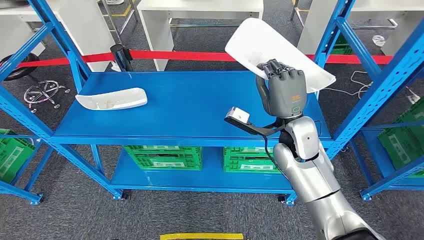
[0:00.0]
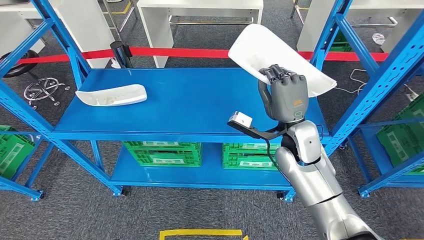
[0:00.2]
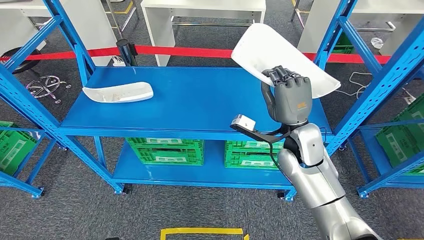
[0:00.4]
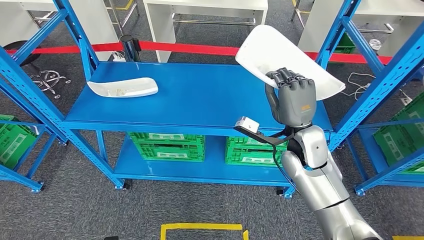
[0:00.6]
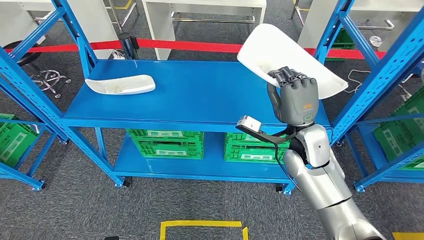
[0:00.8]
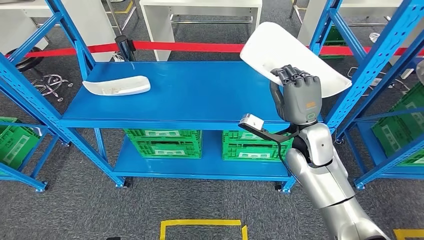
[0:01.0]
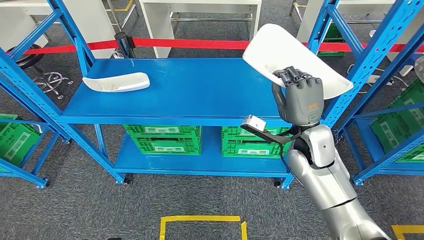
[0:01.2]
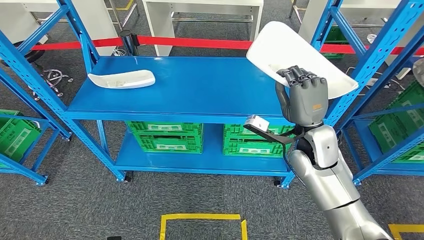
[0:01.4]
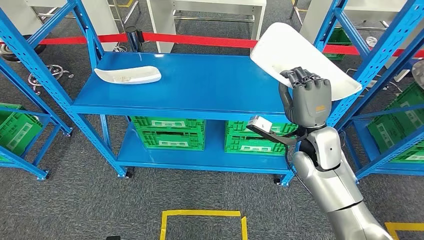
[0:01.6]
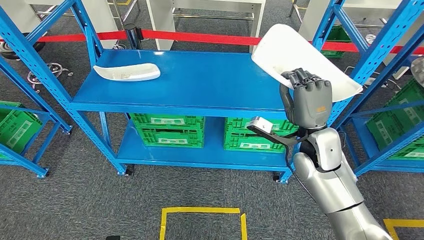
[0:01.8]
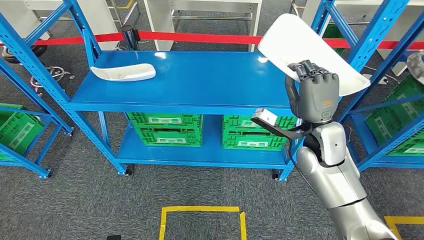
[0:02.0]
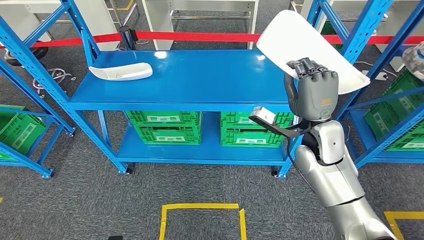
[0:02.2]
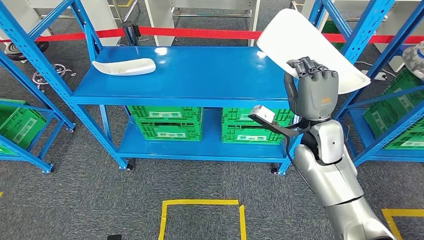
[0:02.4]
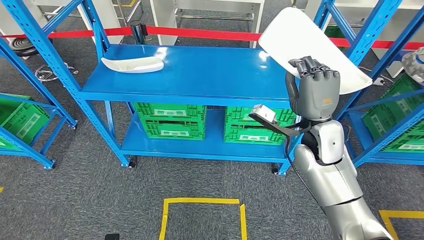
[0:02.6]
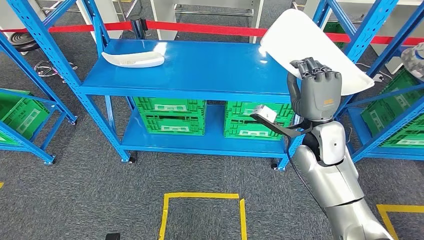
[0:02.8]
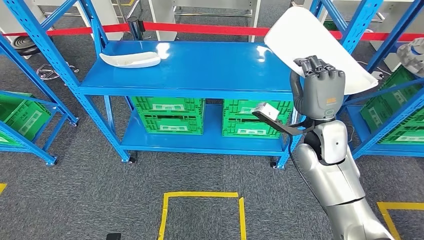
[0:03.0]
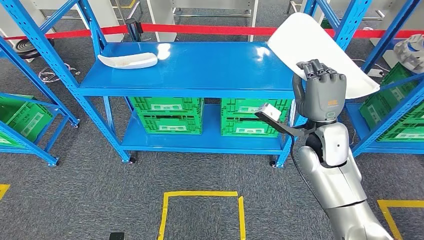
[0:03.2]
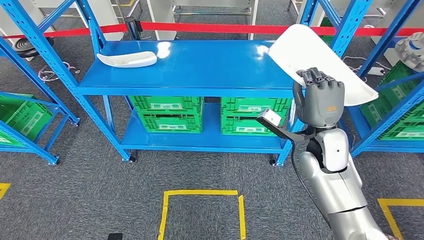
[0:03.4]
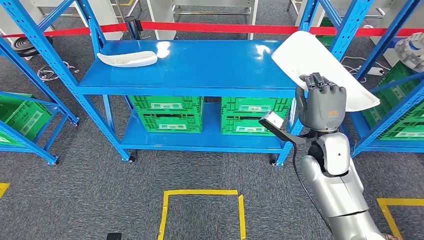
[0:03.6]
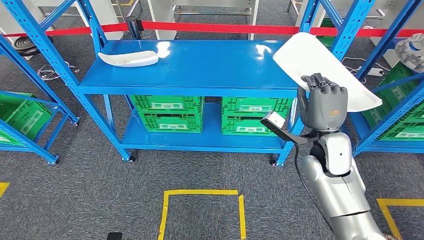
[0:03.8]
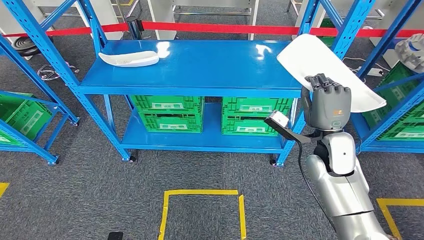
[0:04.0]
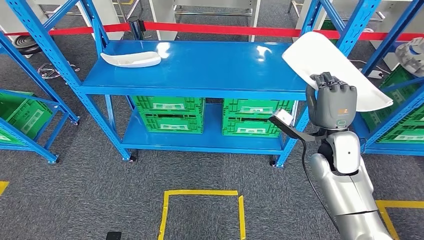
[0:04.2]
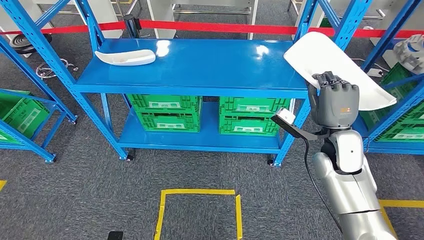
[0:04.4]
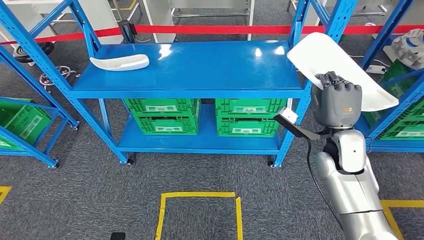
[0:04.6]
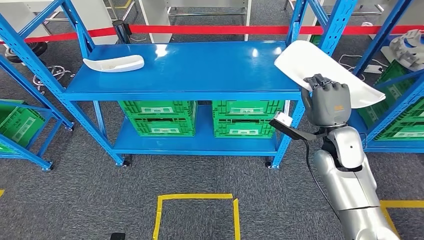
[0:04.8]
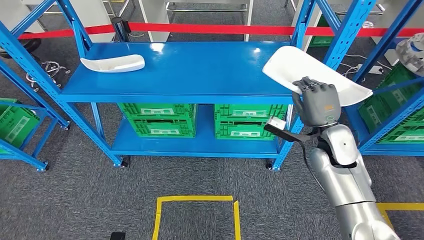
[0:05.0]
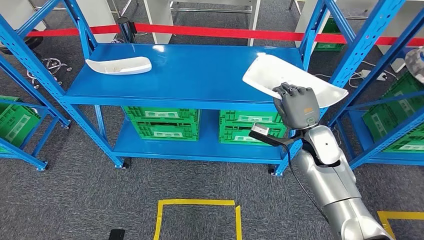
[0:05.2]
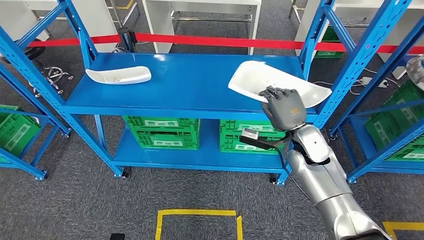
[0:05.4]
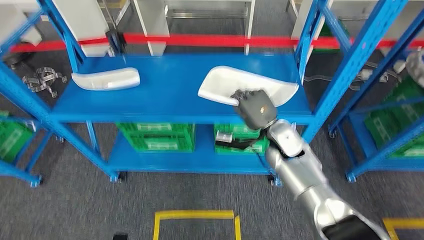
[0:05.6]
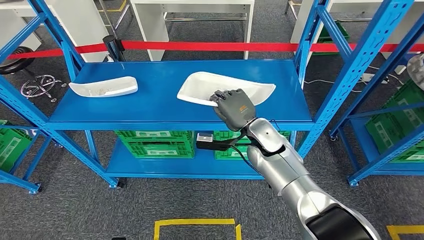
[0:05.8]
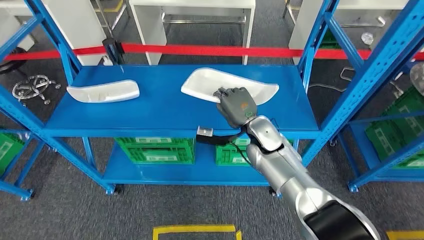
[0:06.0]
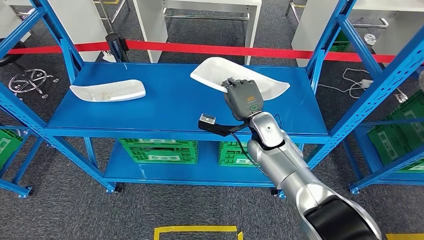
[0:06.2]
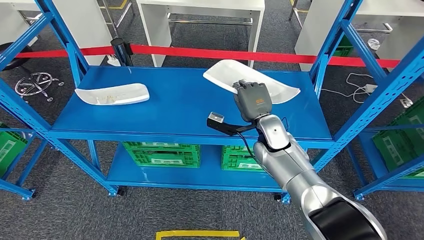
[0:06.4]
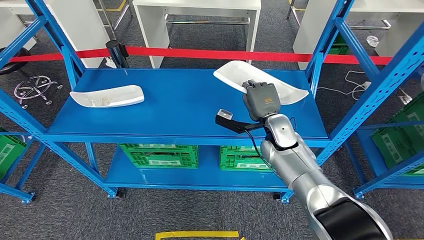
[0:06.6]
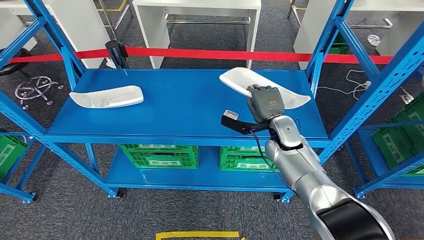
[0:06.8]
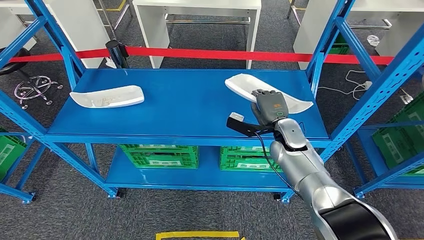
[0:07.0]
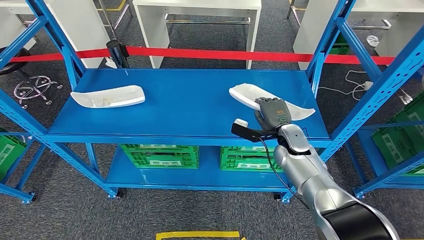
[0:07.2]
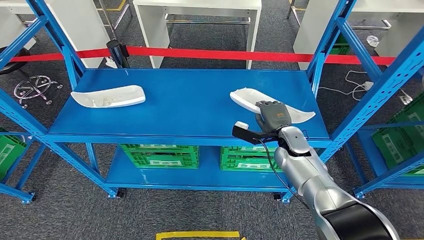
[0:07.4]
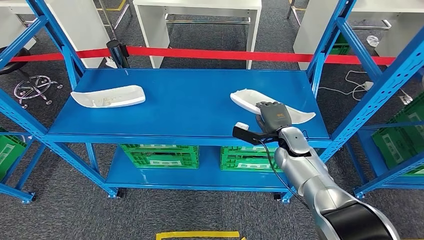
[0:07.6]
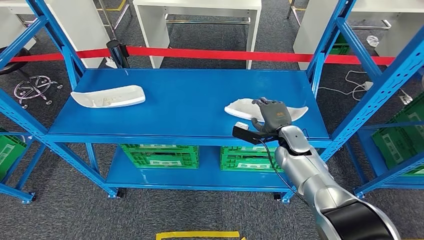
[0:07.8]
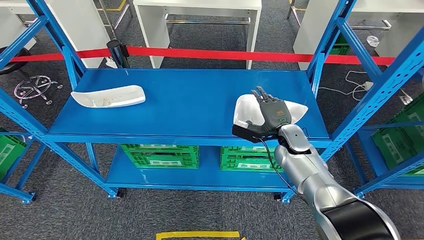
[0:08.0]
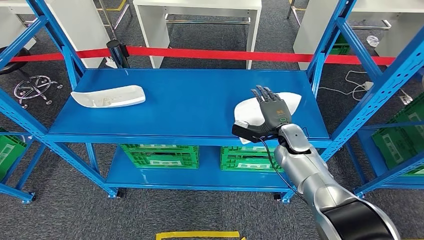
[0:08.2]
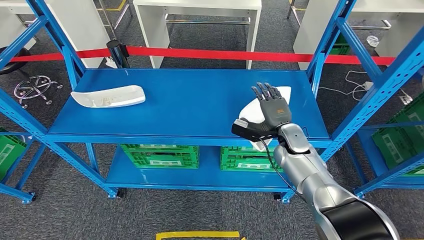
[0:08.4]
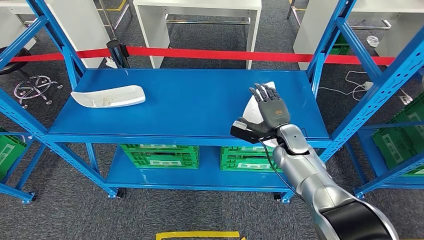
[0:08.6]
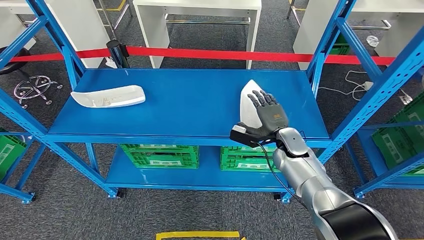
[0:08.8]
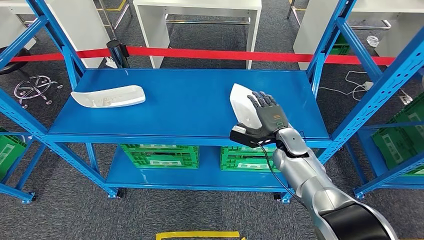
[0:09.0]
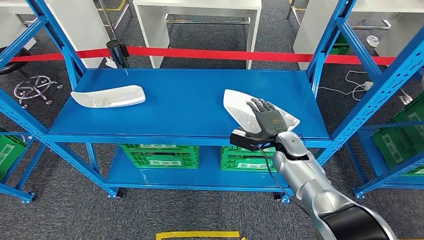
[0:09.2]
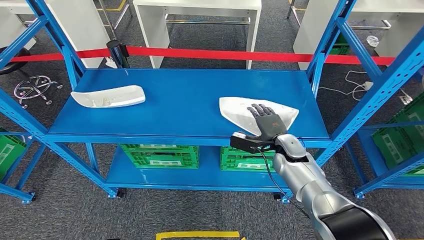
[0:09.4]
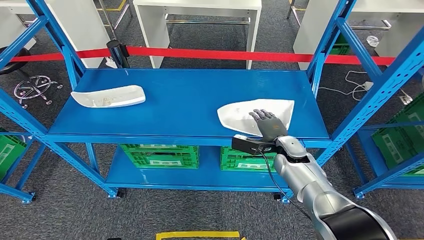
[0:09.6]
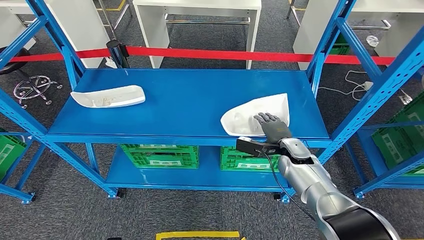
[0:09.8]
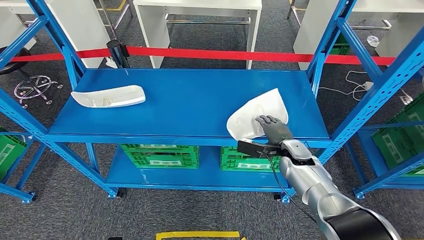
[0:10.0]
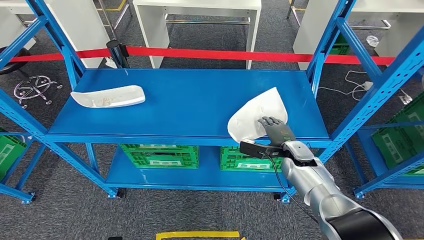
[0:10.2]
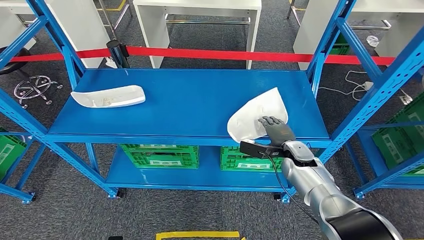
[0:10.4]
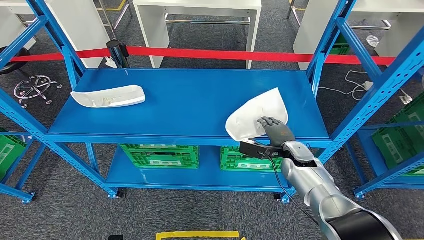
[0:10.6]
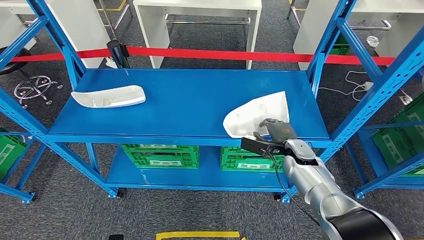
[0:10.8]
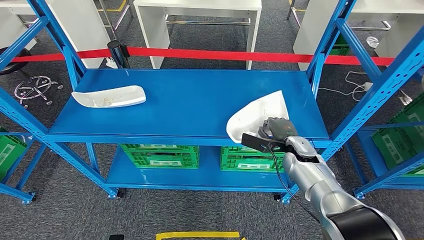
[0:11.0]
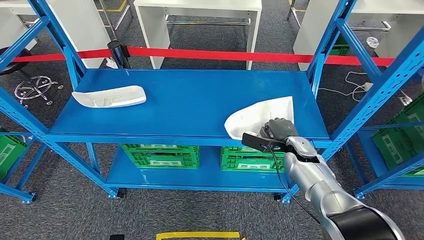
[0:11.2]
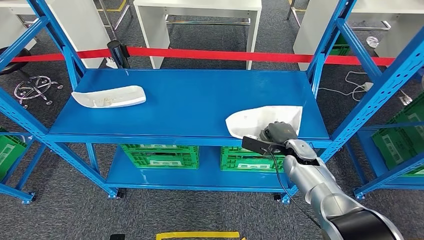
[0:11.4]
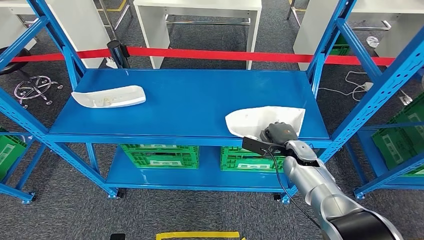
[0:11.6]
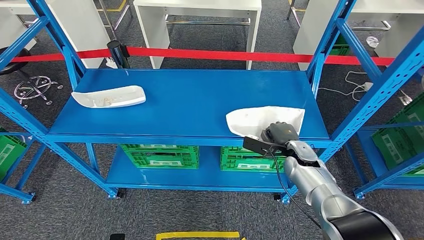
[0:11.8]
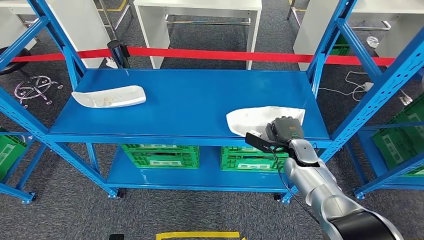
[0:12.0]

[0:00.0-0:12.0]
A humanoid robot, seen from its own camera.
0:07.6 to 0:09.0: There are only small adjustments of the hands.
0:09.0 to 0:10.4: The right hand changes place by roughly 5 cm.
0:10.4 to 0:12.0: The hands move only a little.

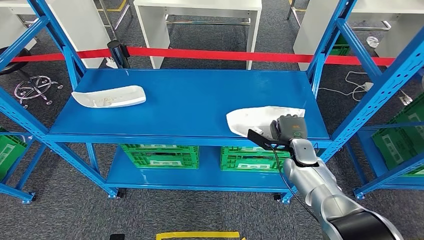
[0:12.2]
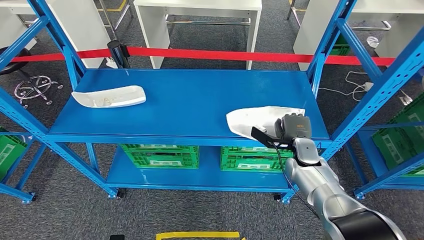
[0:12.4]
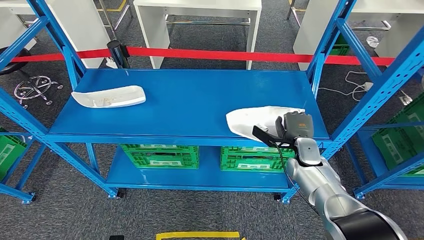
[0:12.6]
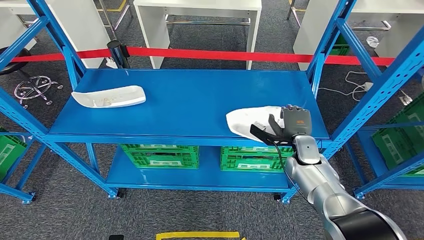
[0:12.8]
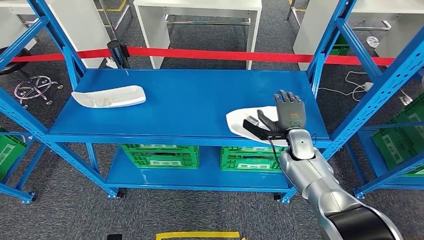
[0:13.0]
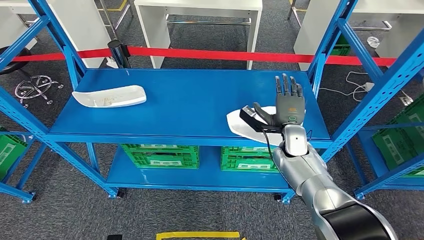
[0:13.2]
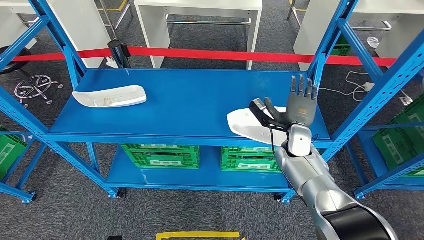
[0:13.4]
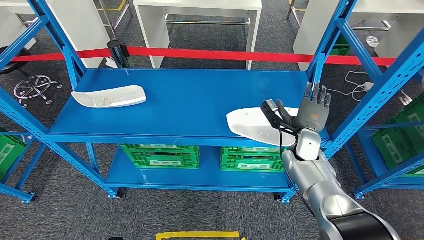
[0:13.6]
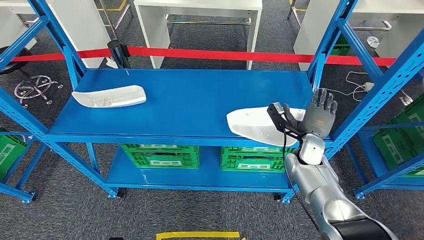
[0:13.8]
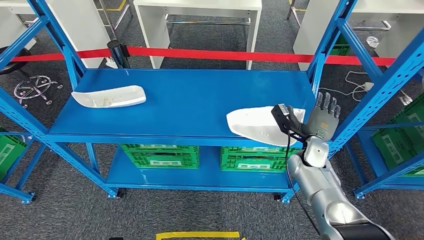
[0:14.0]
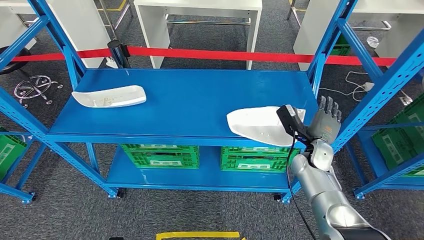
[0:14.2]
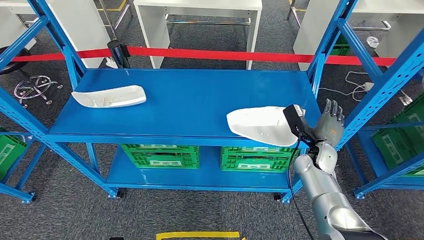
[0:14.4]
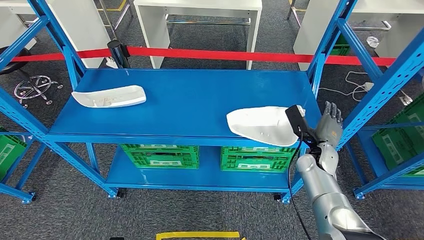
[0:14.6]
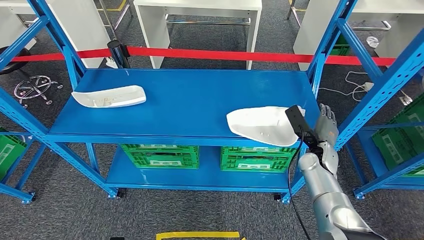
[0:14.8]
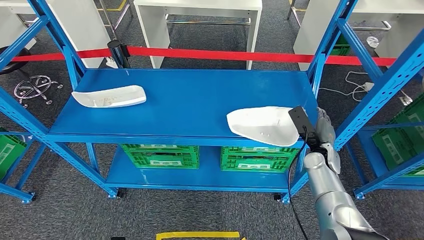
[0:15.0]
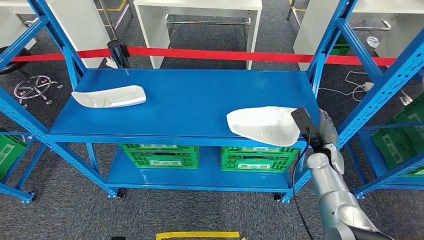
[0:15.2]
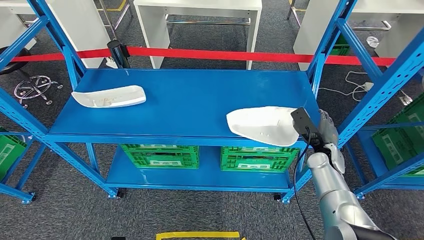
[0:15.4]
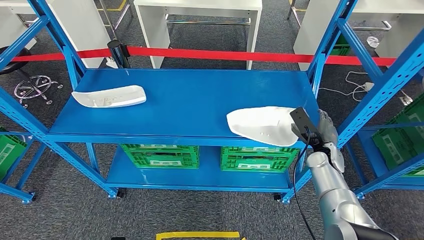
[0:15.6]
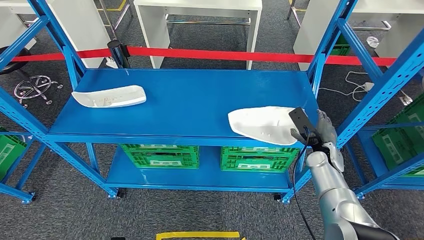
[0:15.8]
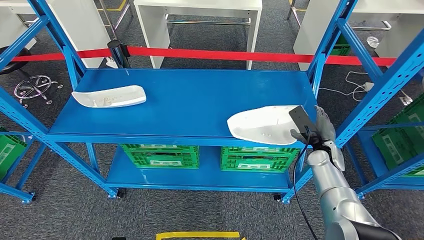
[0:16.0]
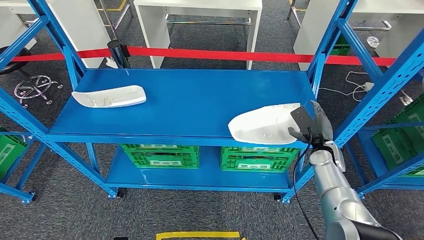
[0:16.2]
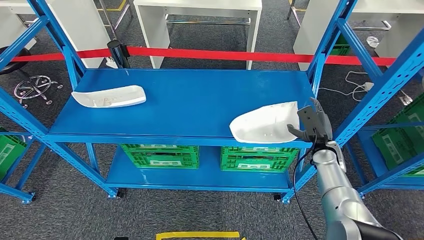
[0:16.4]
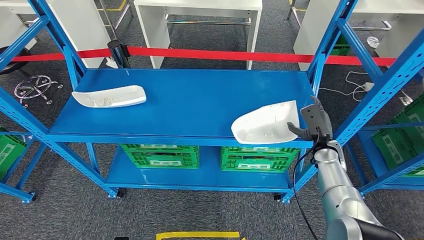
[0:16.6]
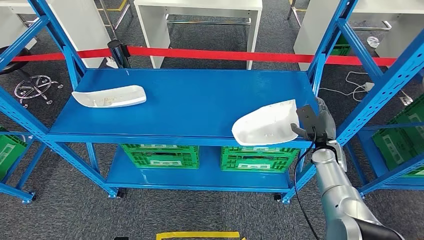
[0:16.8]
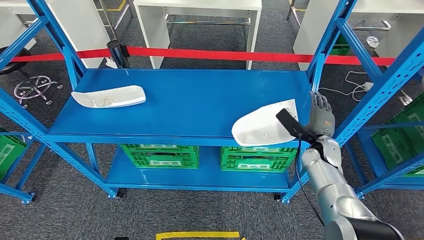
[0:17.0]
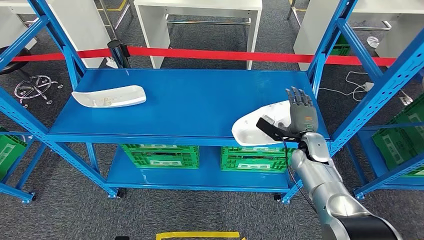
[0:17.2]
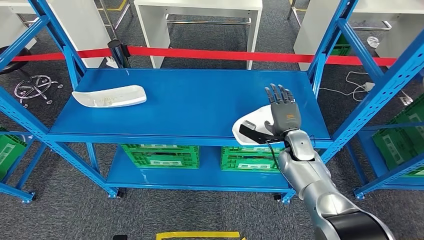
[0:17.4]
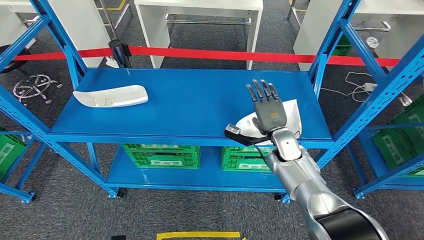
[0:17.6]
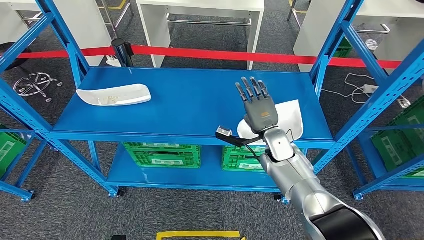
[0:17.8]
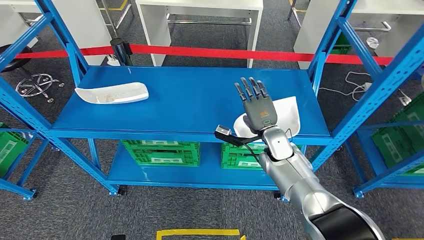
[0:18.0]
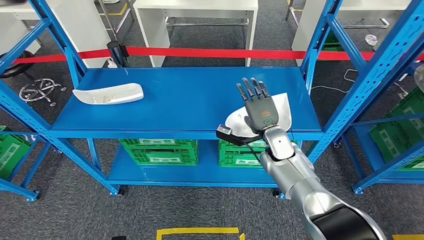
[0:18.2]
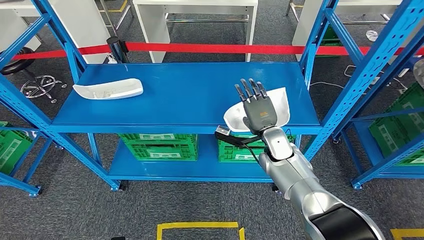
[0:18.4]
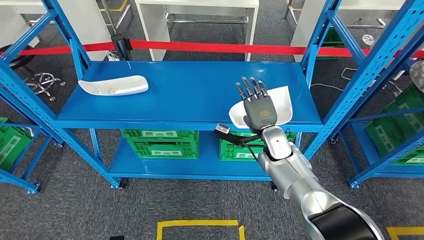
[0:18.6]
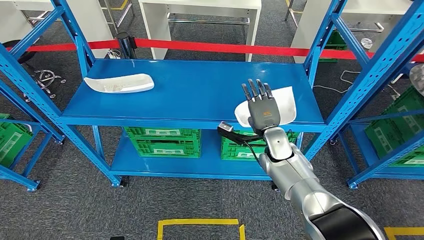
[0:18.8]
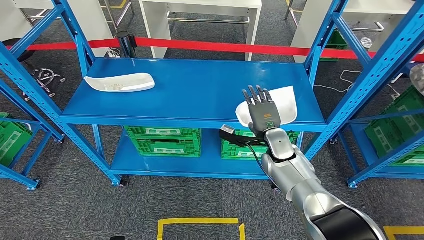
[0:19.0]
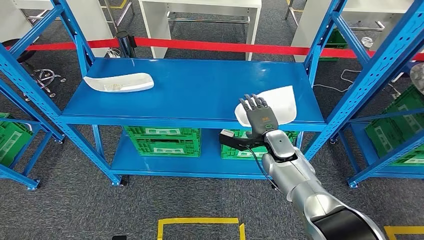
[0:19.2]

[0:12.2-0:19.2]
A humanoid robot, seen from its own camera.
0:13.6 to 0:15.0: The right hand changes place by approximately 5 cm.
